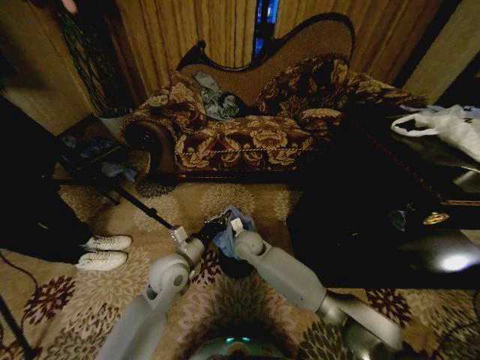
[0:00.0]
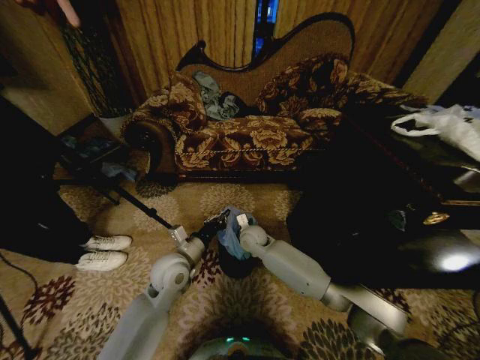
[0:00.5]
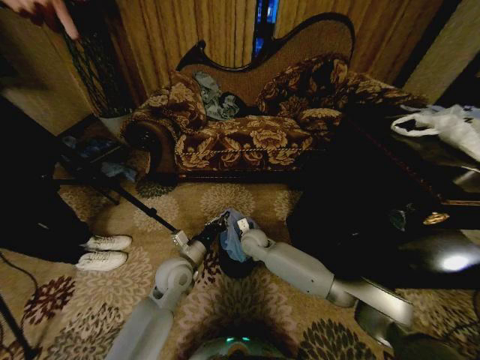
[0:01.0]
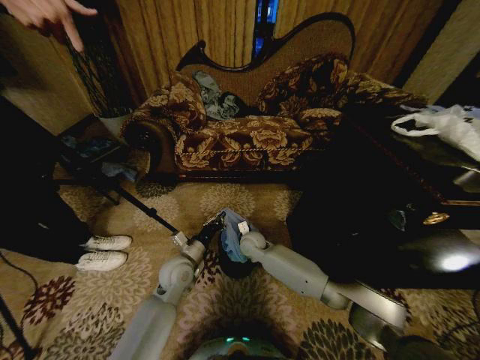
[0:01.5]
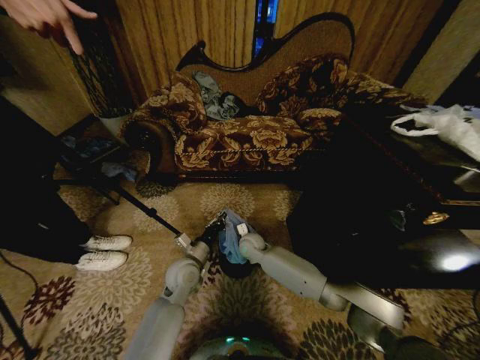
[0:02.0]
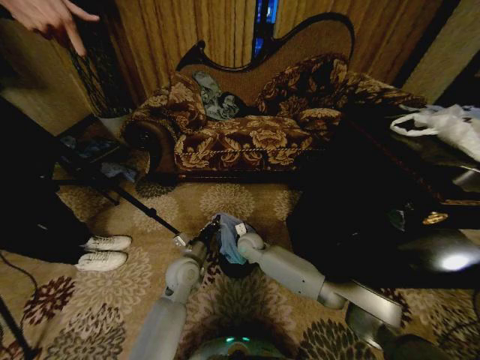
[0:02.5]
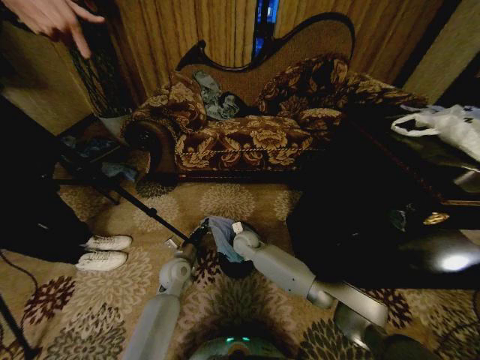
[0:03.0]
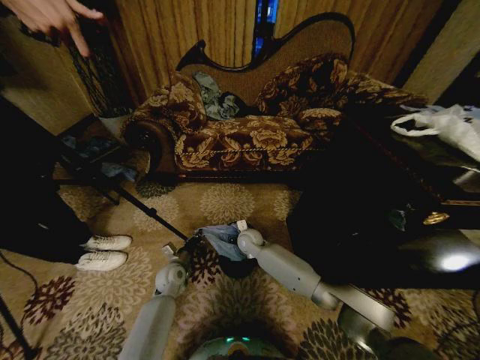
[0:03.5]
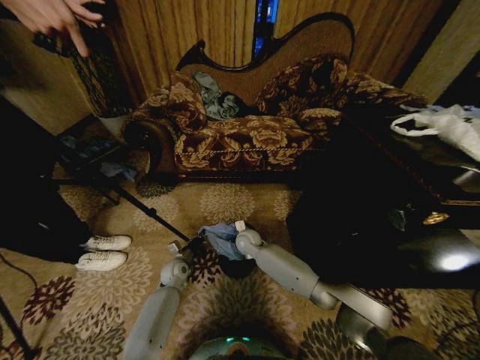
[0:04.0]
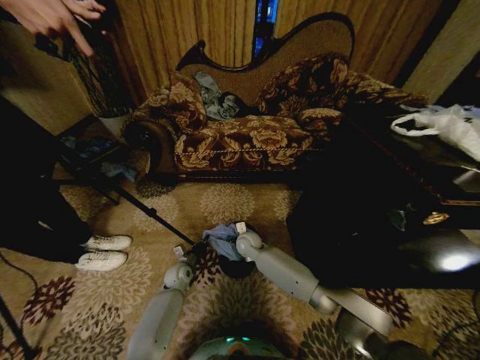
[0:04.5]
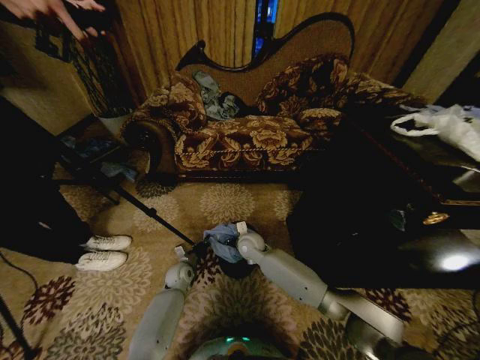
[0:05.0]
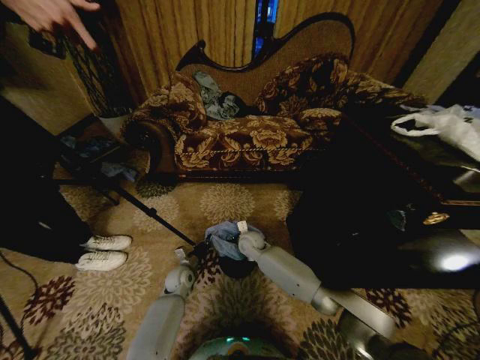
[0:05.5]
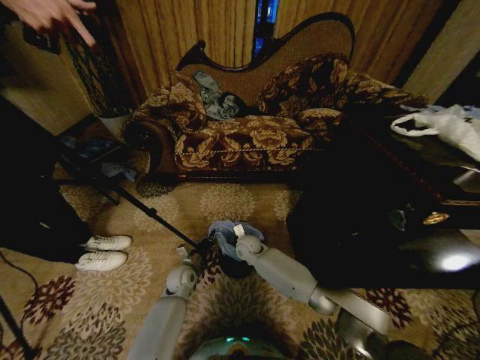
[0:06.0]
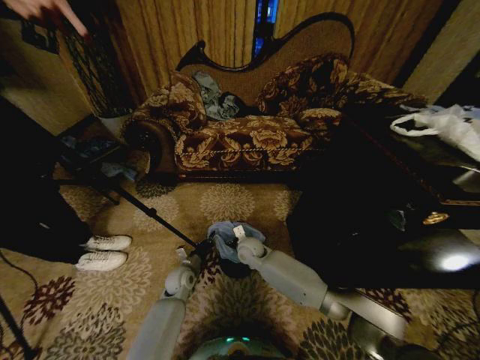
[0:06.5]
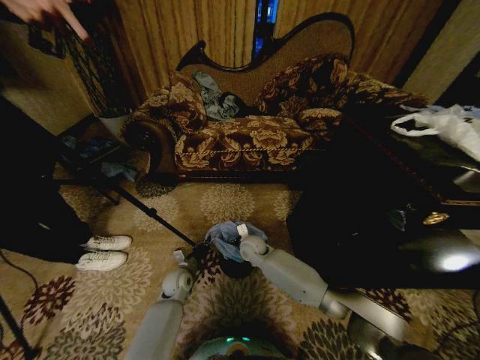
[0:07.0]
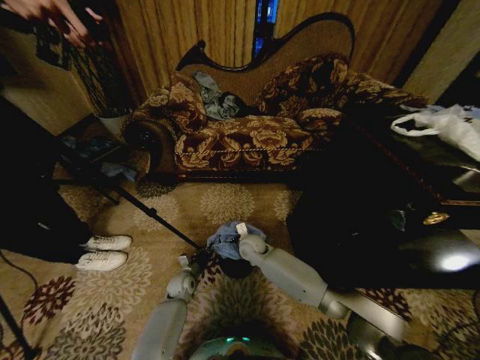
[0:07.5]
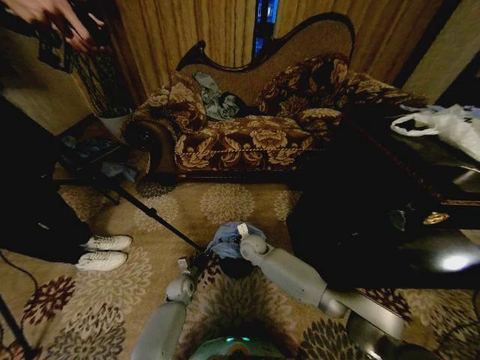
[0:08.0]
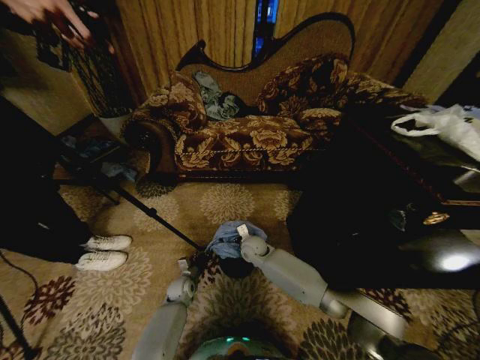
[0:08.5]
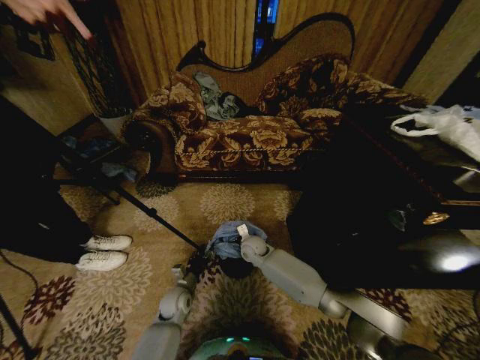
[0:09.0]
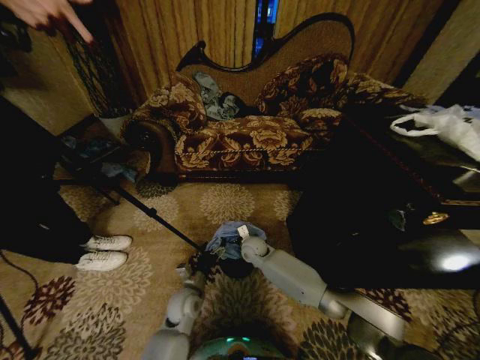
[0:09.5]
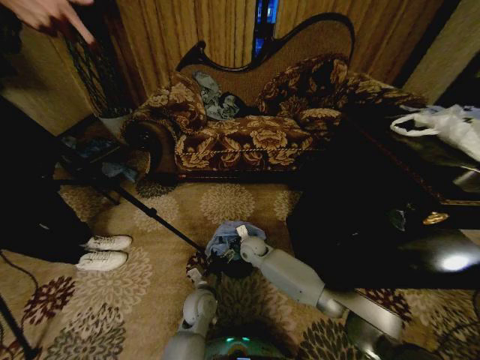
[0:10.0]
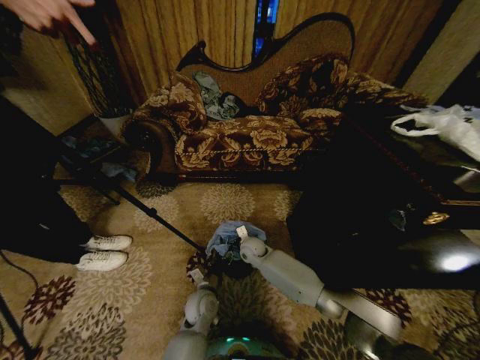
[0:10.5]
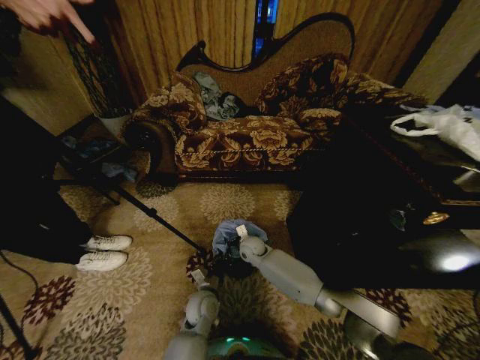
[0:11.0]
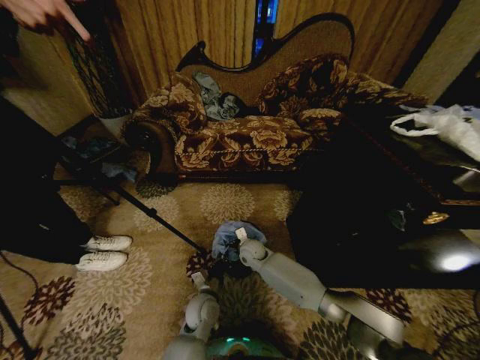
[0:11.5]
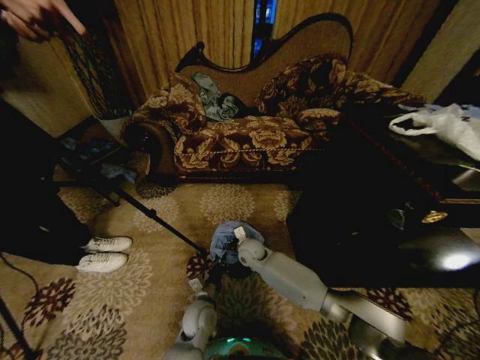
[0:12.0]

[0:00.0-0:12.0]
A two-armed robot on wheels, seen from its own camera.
Task of the whole recording: Place a garbage bag over the trash bin.
0:00.0 to 0:02.0: The left gripper goes some 5 cm downward.
0:02.0 to 0:04.0: The left gripper travels downward, to the left and forward by approximately 15 cm.
0:04.0 to 0:06.0: The right gripper opens its fingers.
0:06.0 to 0:08.0: The left gripper shifts some 10 cm downward.
0:08.0 to 0:10.0: The left gripper travels upward, to the right and backward by roughly 20 cm, and opens up.
0:10.0 to 0:12.0: The left gripper closes up.

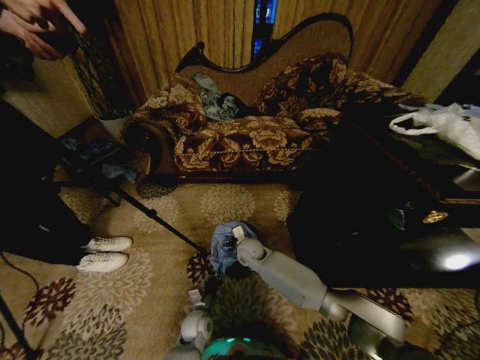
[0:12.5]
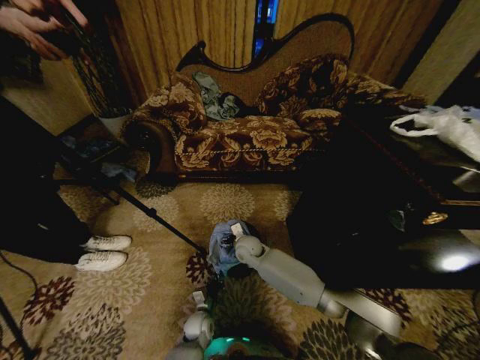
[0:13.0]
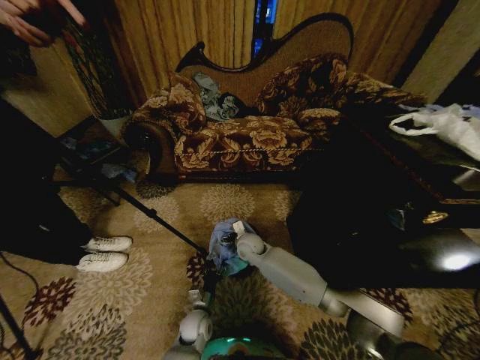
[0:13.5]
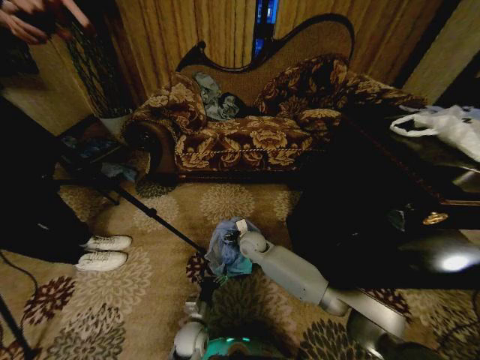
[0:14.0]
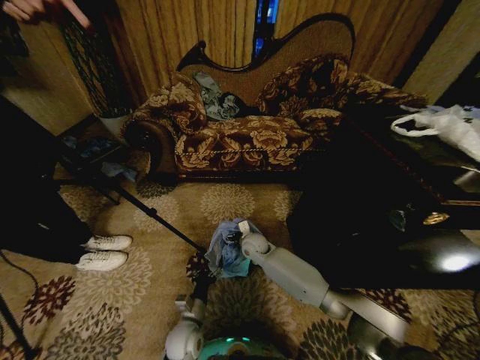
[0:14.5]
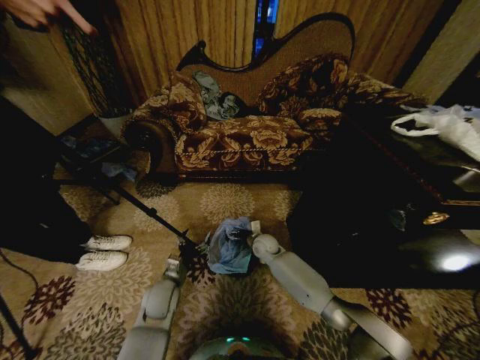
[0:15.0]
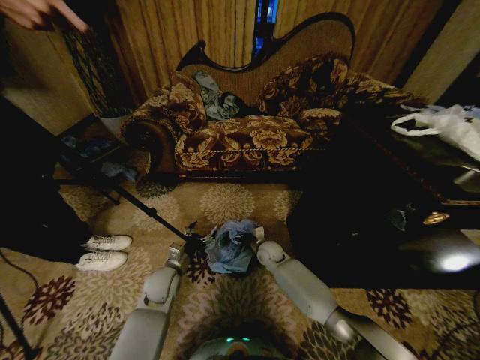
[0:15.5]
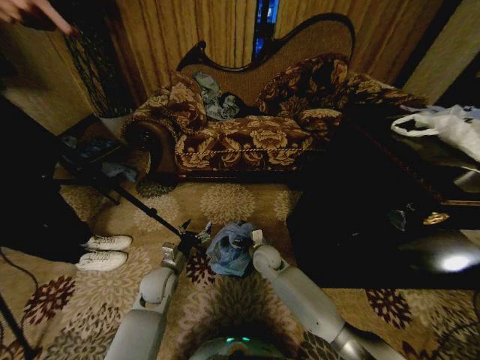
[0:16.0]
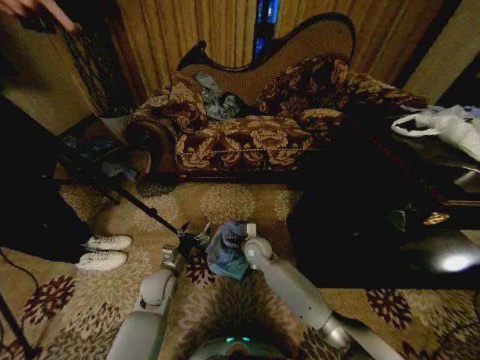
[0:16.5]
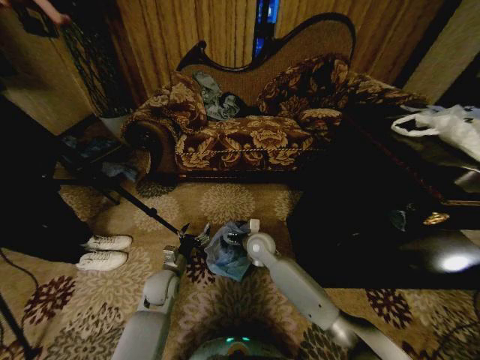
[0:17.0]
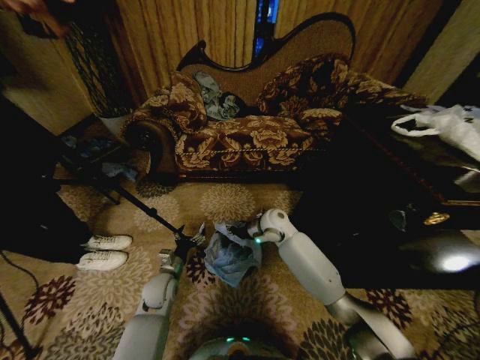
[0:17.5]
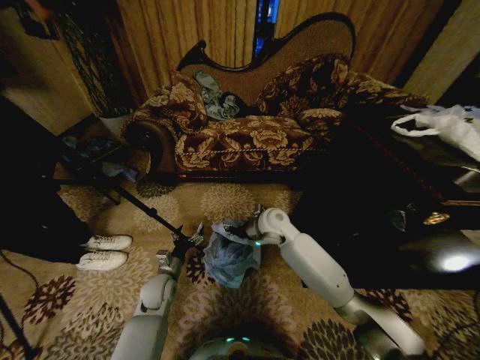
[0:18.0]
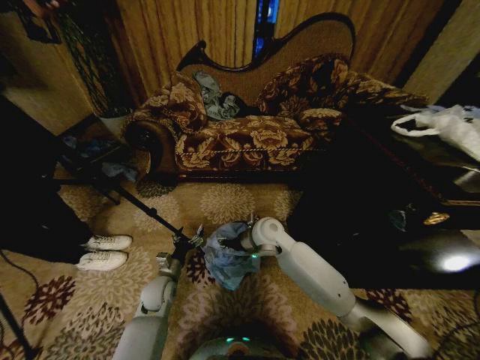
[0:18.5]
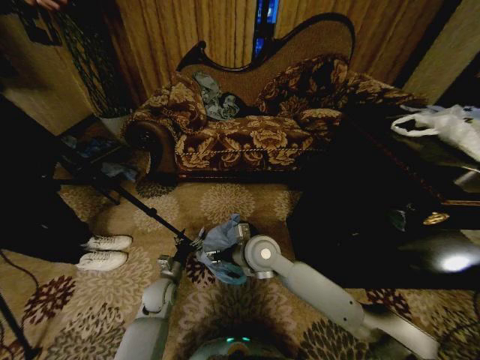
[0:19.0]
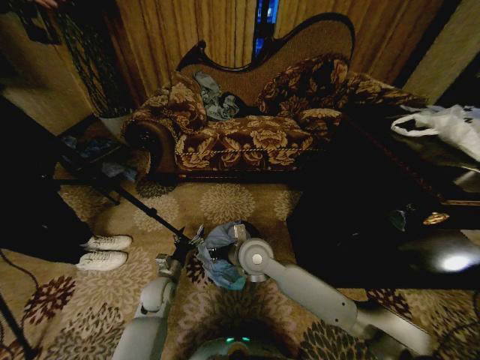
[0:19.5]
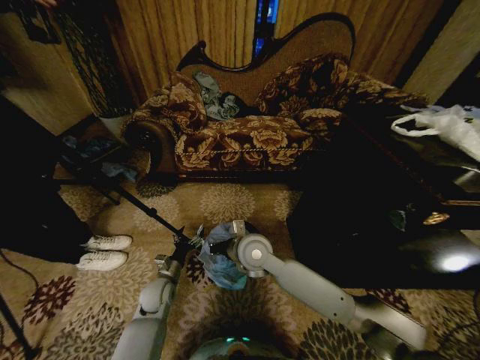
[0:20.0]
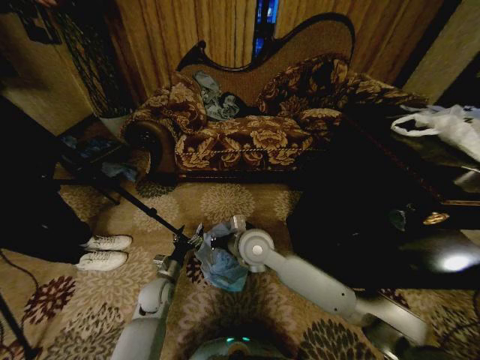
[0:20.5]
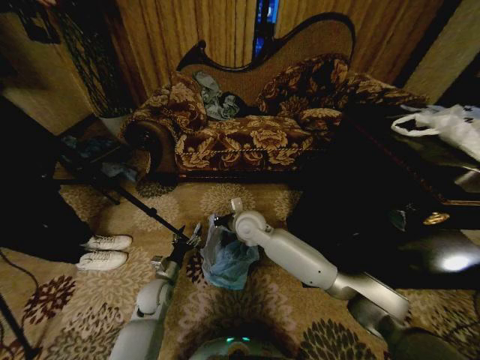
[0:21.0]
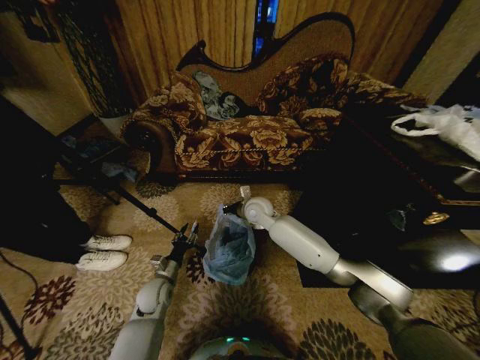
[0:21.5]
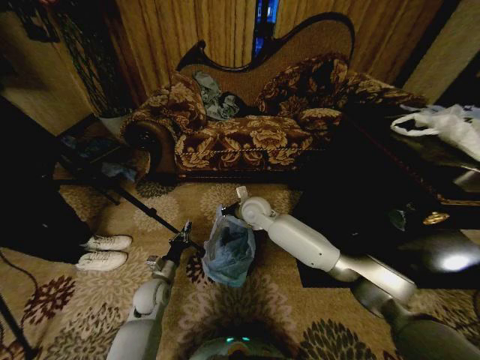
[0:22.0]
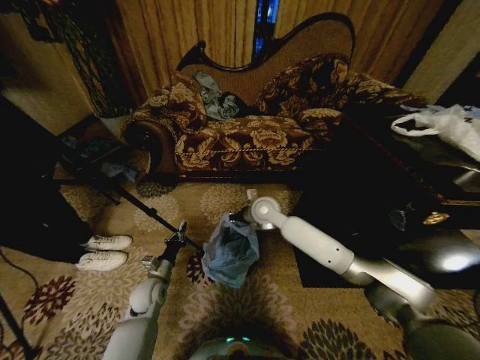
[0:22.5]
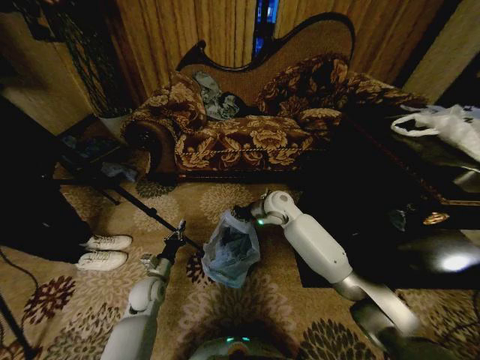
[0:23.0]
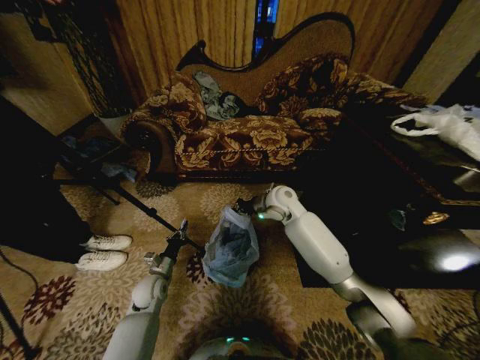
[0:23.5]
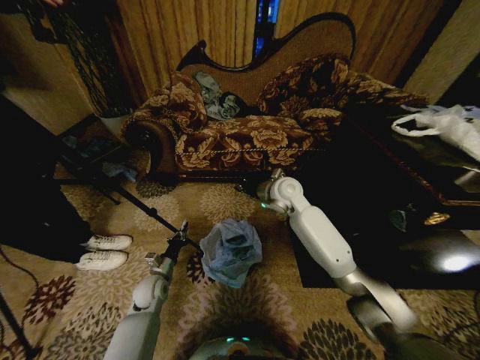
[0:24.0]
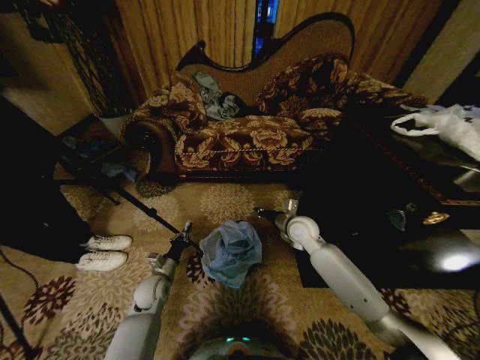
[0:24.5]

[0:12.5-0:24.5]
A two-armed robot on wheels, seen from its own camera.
Task of the whole recording: Place a garbage bag over the trash bin.
0:12.5 to 0:14.5: The left gripper is displaced upward by some 10 cm, and opens up.
0:14.5 to 0:16.5: The left gripper is displaced forward, to the left and upward by about 15 cm.
0:16.5 to 0:18.5: The right gripper moves upward, roughly 10 cm.
0:18.5 to 0:20.5: The right gripper shifts approximately 5 cm backward, and closes.
0:20.5 to 0:22.5: The right gripper heads forward, covering about 15 cm. Meanwhile the left gripper closes.
0:22.5 to 0:24.5: The right gripper shifts some 15 cm to the right and downward.

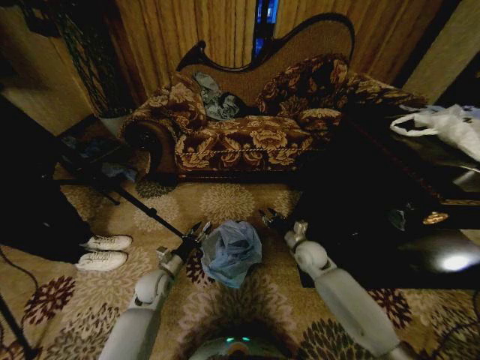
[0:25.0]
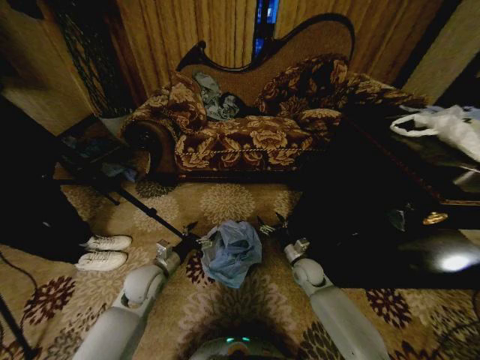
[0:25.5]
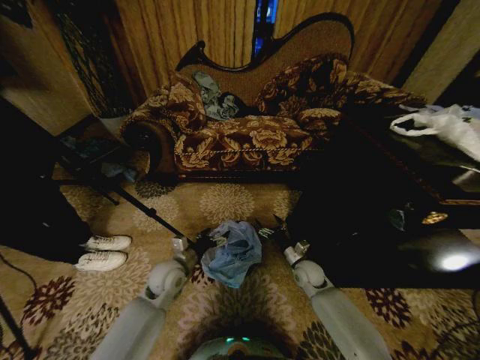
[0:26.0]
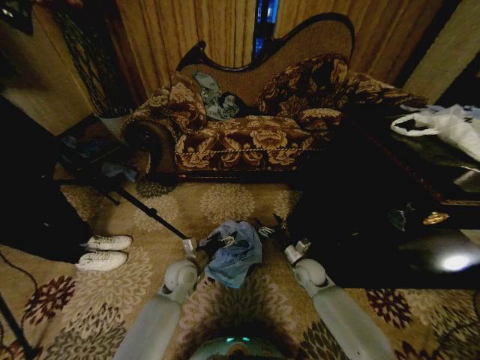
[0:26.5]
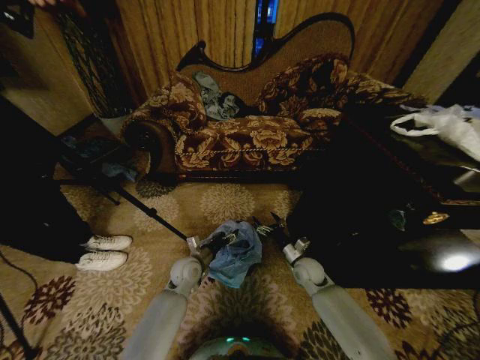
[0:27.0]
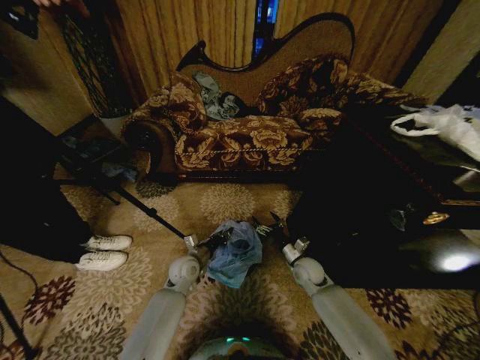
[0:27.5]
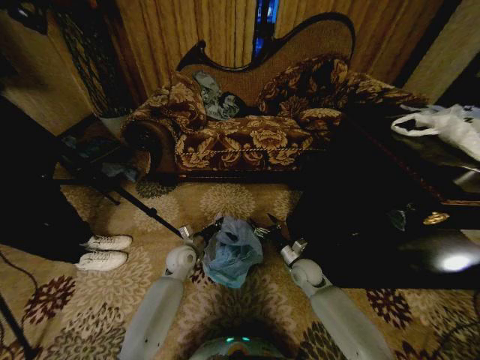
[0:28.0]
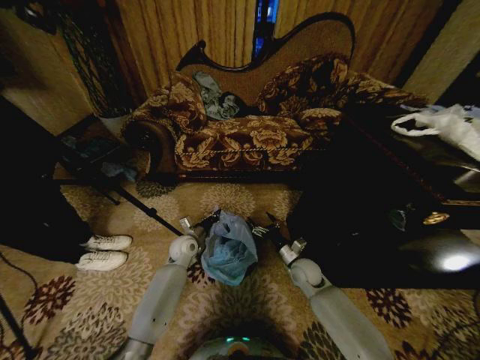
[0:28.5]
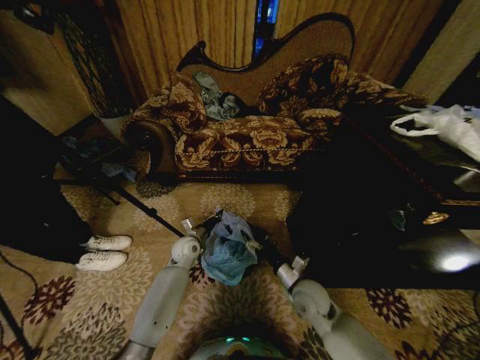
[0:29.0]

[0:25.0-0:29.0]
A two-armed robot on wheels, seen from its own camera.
Task of the whole recording: Place a garbage bag over the trash bin.
0:25.0 to 0:27.0: The left gripper heads to the right, covering approximately 10 cm, while the right gripper opens.
0:27.0 to 0:29.0: The left gripper travels forward by approximately 5 cm, and closes up, while the right gripper heads backward, covering about 10 cm.
